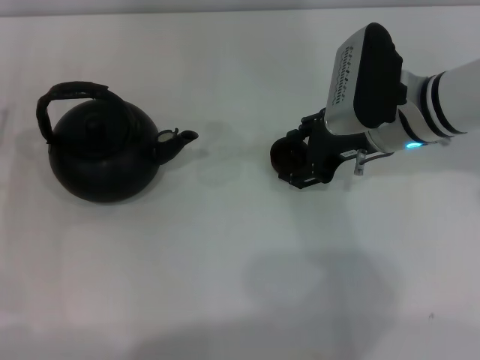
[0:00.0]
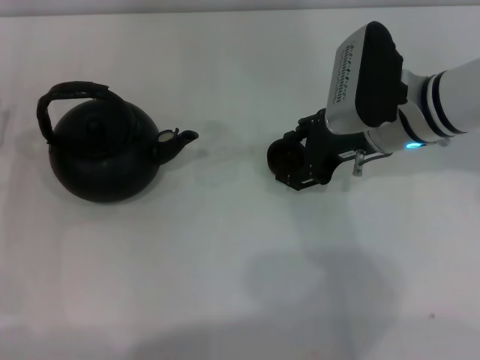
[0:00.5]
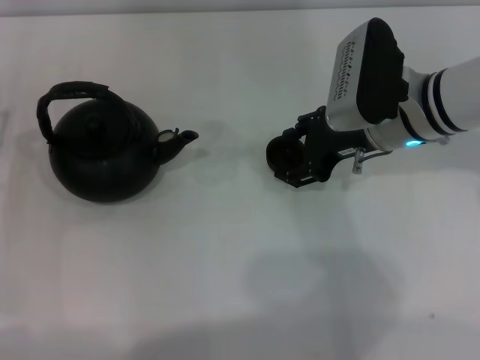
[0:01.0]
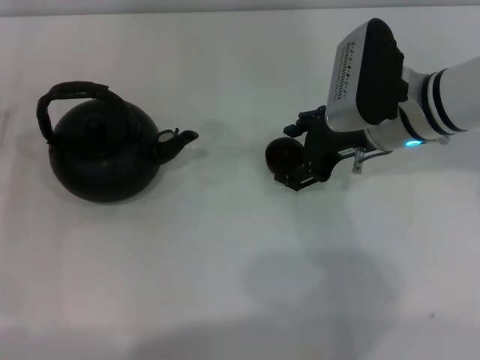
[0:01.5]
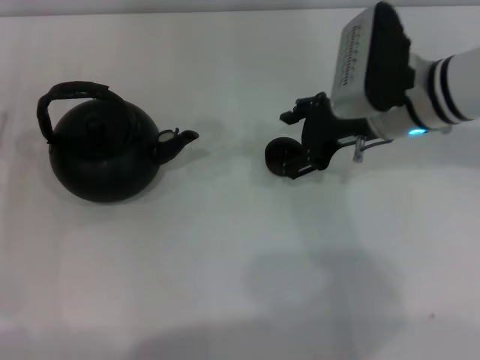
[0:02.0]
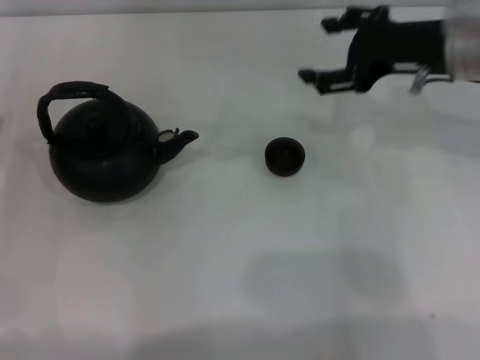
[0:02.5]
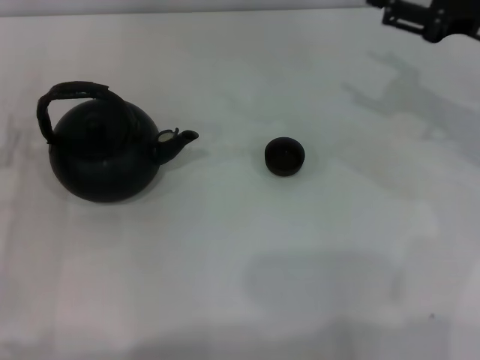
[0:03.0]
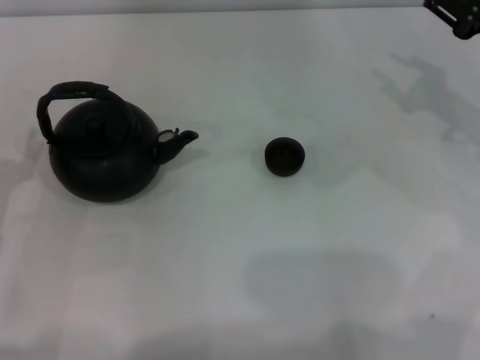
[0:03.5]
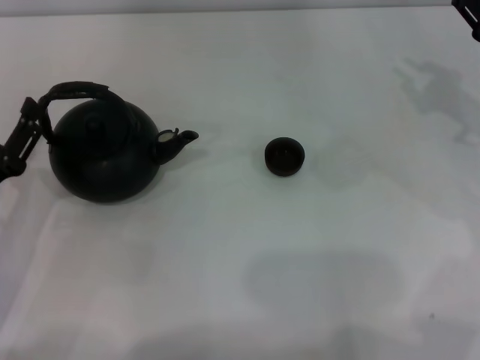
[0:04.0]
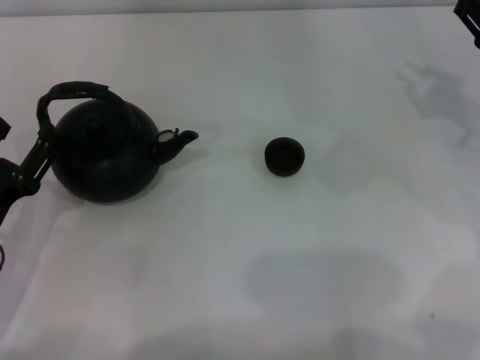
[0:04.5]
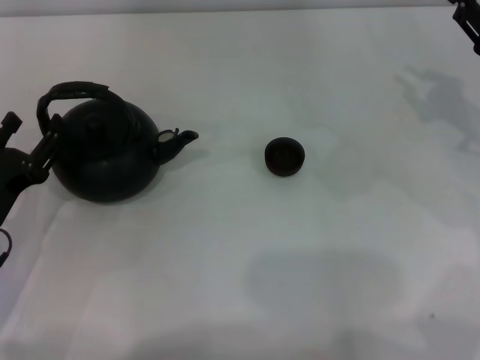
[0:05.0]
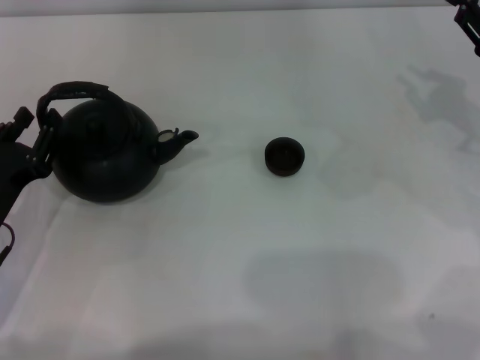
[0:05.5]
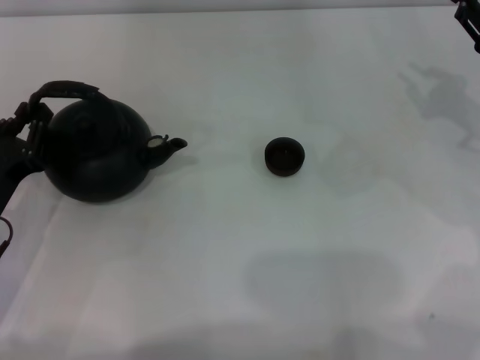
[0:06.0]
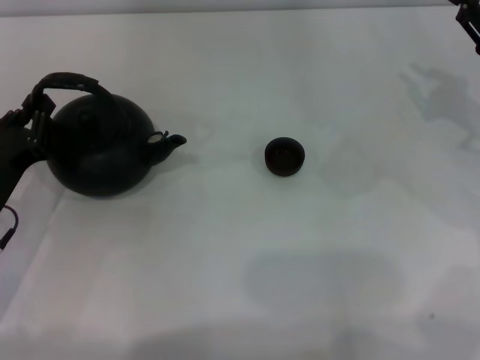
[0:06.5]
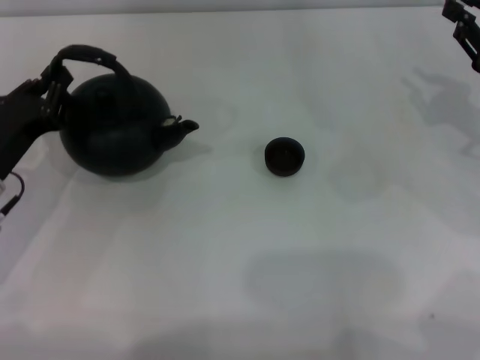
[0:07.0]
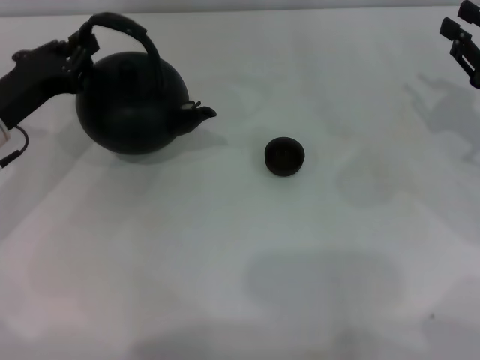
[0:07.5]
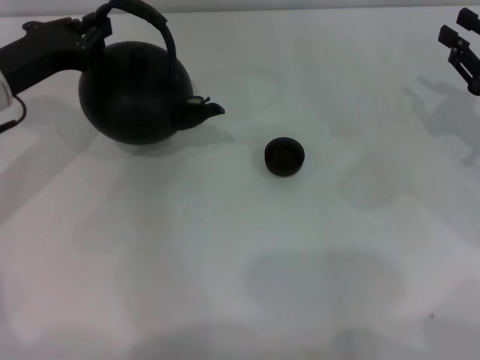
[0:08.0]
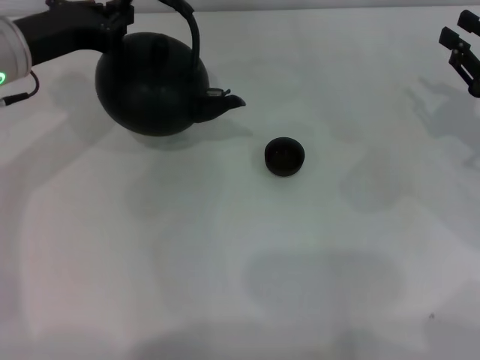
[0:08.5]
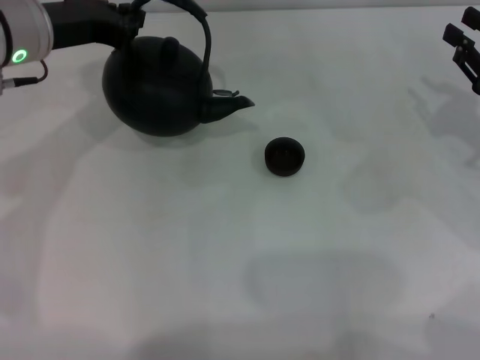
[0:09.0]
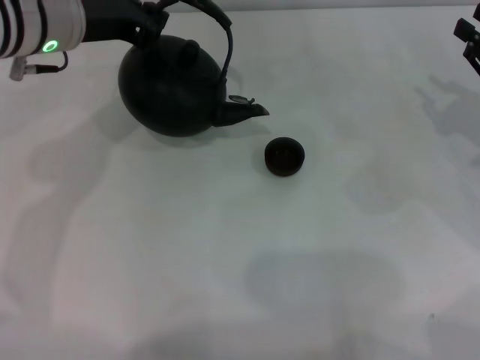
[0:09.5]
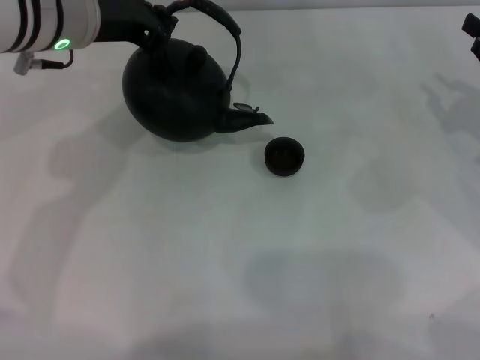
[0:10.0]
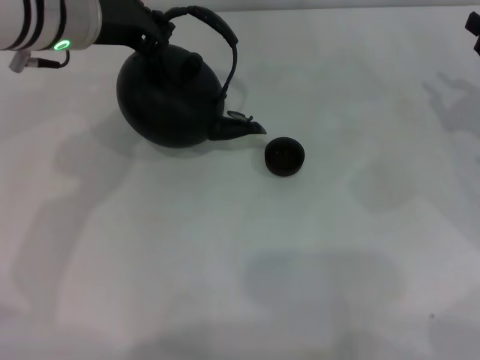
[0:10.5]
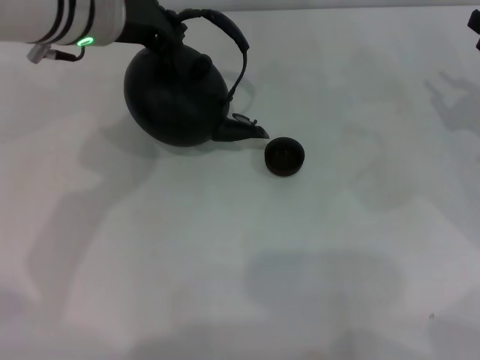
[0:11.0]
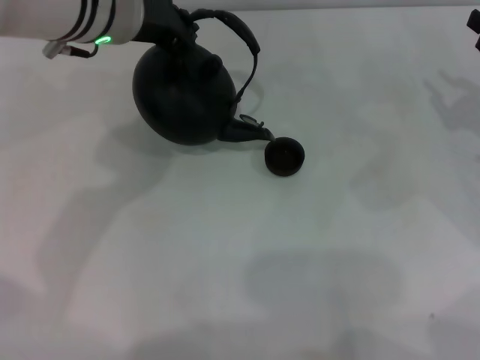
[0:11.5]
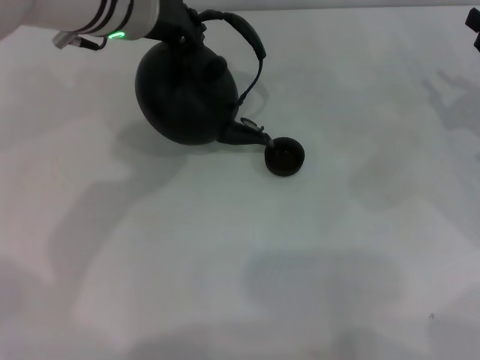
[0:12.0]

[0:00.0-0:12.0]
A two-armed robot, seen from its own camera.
Task of the whole recording: Grasp the handle of the teapot with one hand and pour tea into the teacup.
Step, 0:00.0 to 0:02.0: Place the teacup in the center of view with the right gripper.
Step, 0:02.5 to 0:08.5: Pick up the teapot with the left gripper.
0:00.0 to 0:02.0: The grippers make only small movements.
0:02.0 to 0:04.0: The left gripper is displaced backward by about 5 cm. Meanwhile the right gripper is displaced to the right by roughly 15 cm, and closes its fingers.
0:04.0 to 0:06.0: The left gripper closes its fingers.
0:06.0 to 0:08.0: The left gripper goes about 15 cm forward and upward.
0:08.0 to 0:10.0: The left gripper travels to the right and upward by roughly 15 cm.
0:10.0 to 0:12.0: The left gripper shifts some 5 cm to the right.

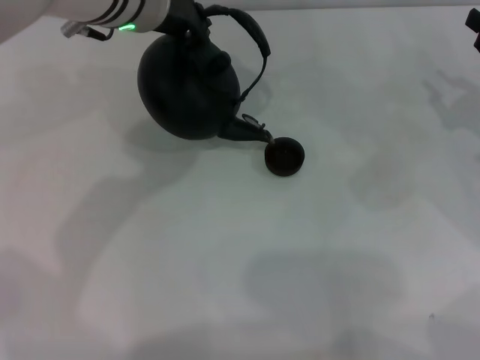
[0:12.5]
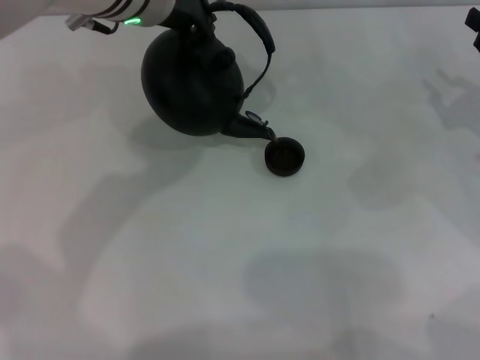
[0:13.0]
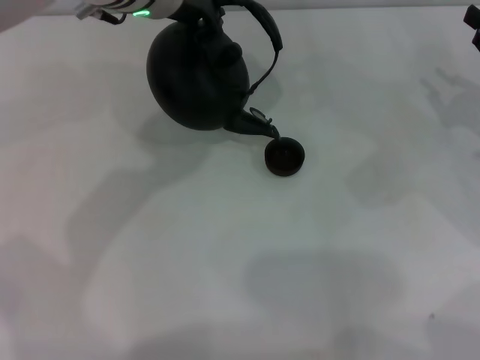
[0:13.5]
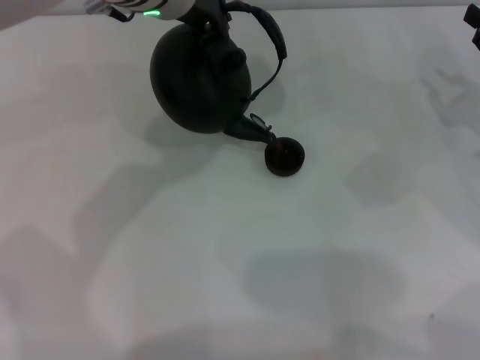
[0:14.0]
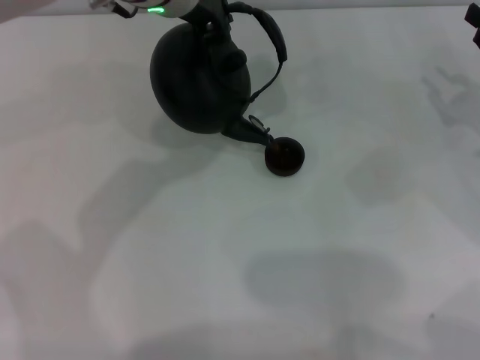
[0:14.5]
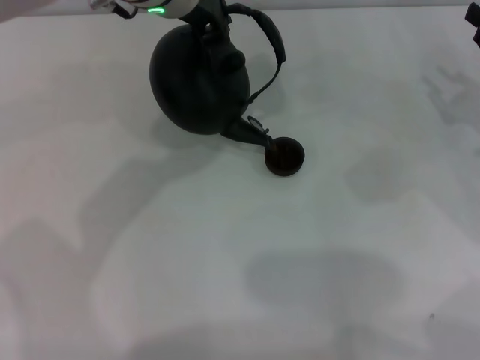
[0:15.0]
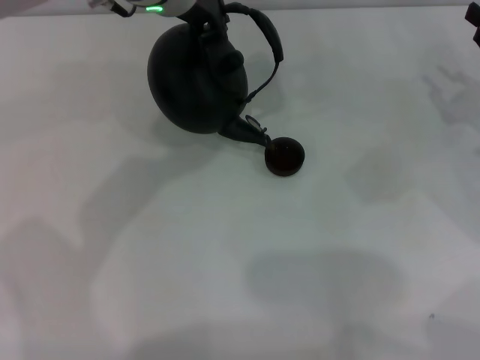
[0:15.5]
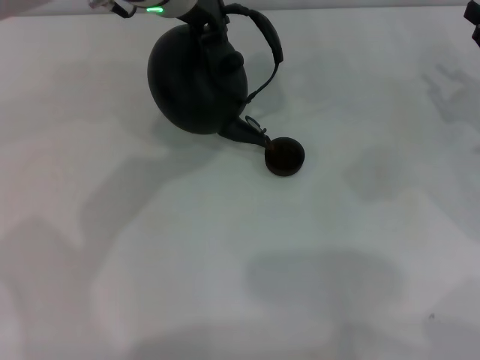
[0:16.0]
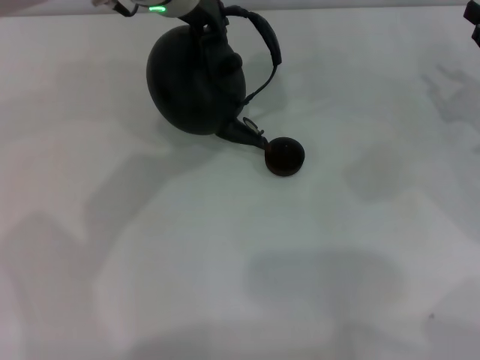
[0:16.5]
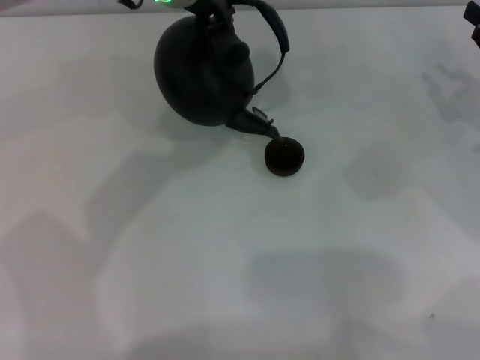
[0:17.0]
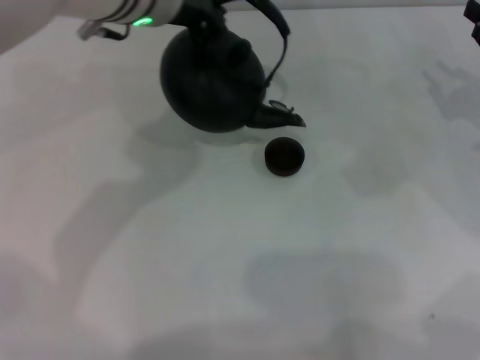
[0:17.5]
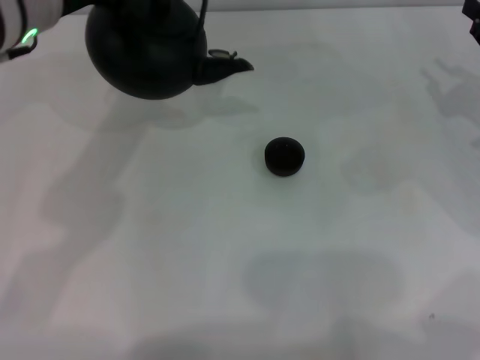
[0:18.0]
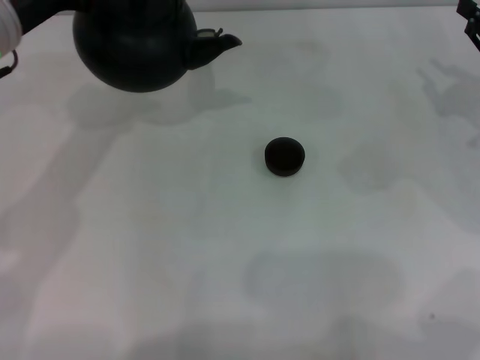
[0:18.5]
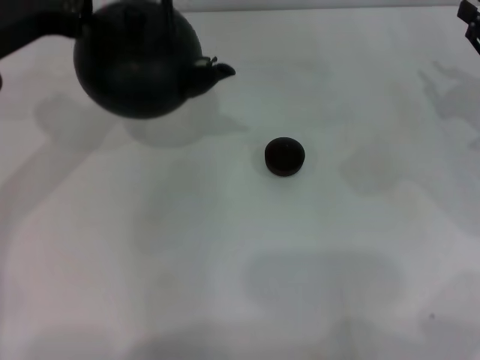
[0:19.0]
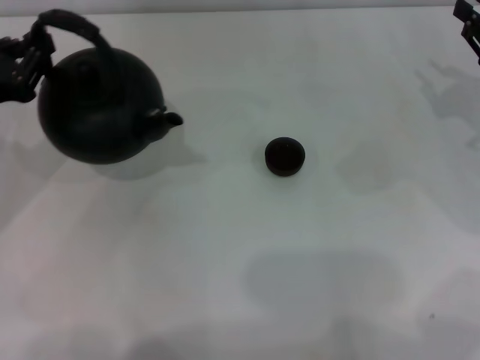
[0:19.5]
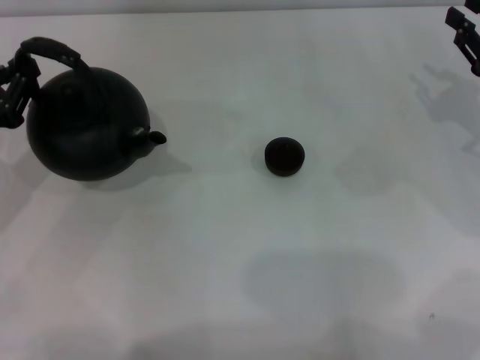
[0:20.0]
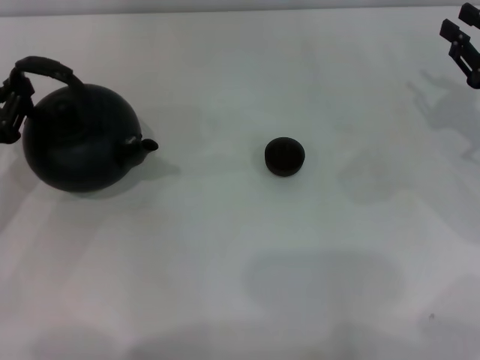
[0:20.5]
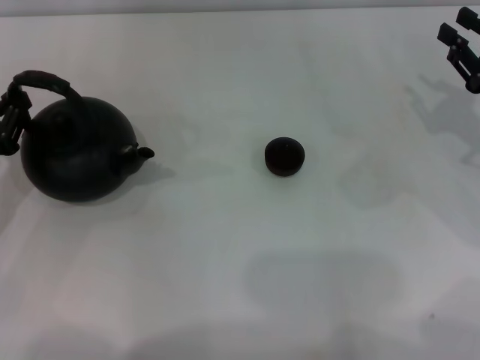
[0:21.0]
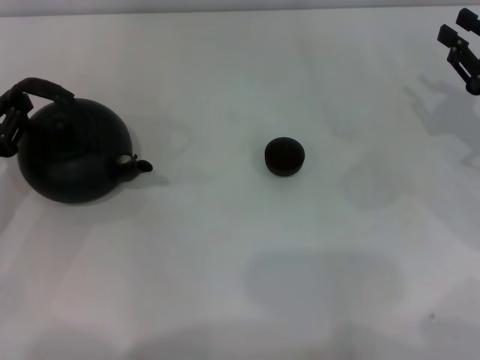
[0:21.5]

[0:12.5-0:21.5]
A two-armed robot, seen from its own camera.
Task of the whole recording: Grasp the handle of the teapot with one hand and pour tea into the teacup.
Step, 0:12.5 to 0:17.5: Pour tea into the teacup with the left gripper.
0:12.5 to 0:14.5: The grippers make only small movements.
0:14.5 to 0:17.0: The two grippers keep their place.
0:17.0 to 0:19.5: The left gripper shifts some 30 cm to the left, backward and downward.
0:19.5 to 0:21.5: The left gripper moves downward, approximately 5 cm.

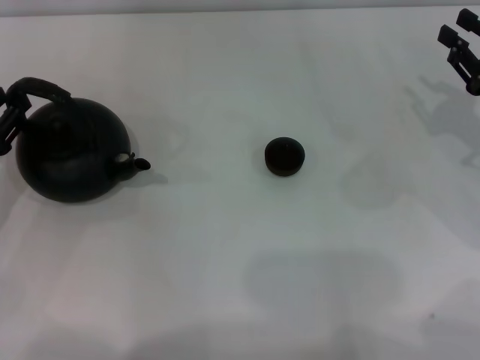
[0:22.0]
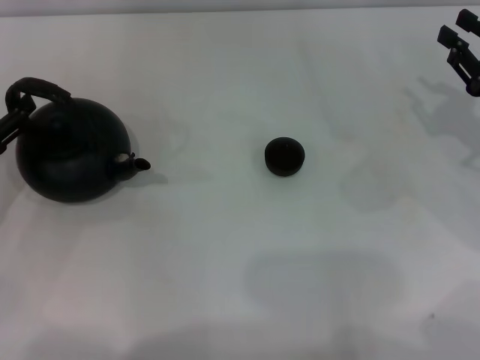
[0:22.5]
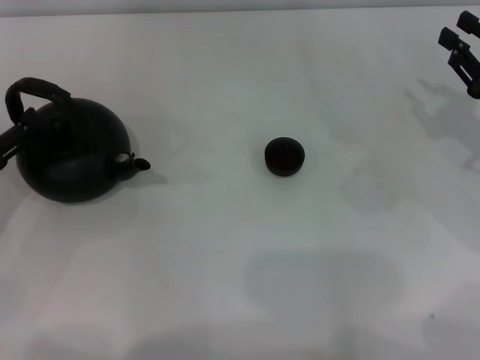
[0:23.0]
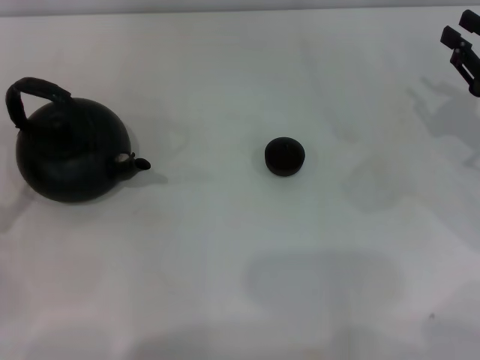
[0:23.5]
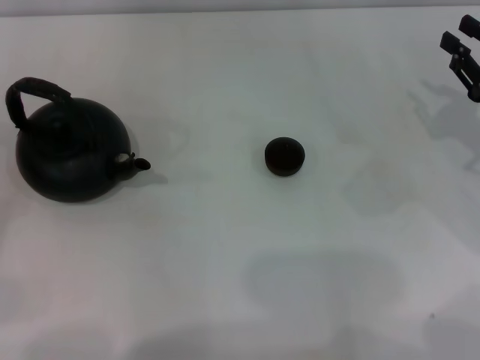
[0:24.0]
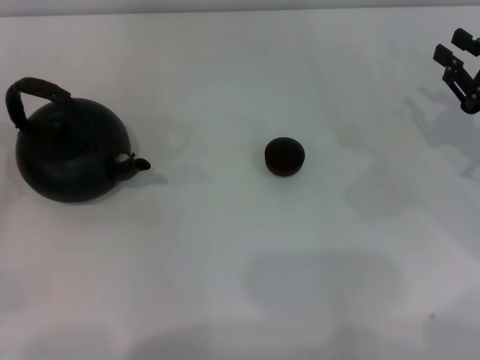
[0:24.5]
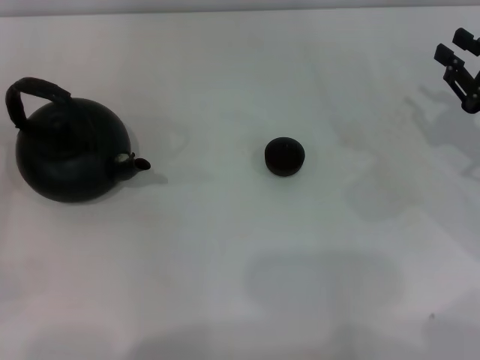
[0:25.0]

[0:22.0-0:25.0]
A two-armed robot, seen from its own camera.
Task of the whole recording: Grasp the handle of the teapot with one hand and pour tea into the teacup.
0:22.0 to 0:23.5: The left gripper goes approximately 10 cm backward, and opens its fingers.
